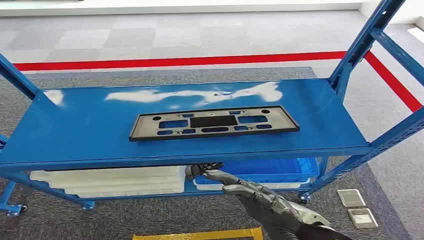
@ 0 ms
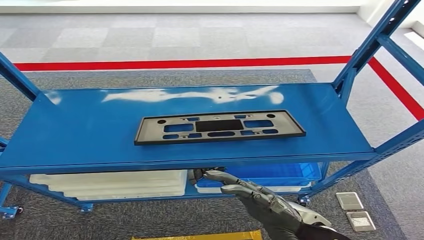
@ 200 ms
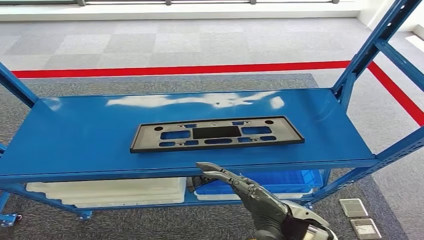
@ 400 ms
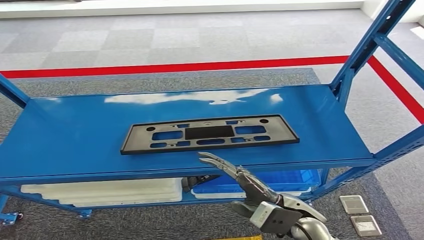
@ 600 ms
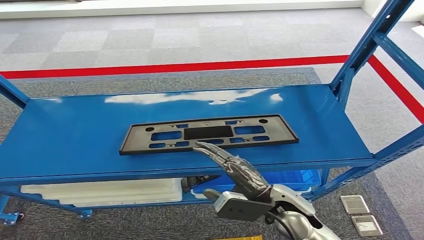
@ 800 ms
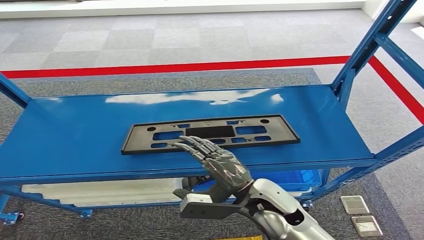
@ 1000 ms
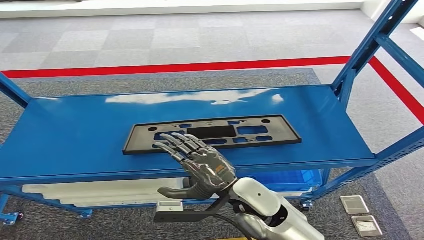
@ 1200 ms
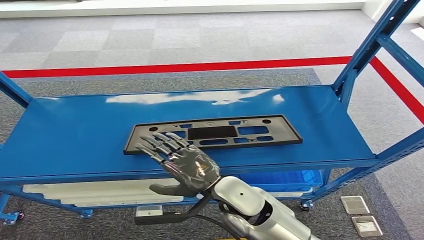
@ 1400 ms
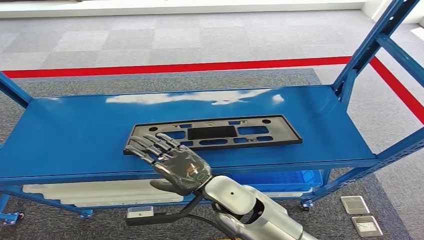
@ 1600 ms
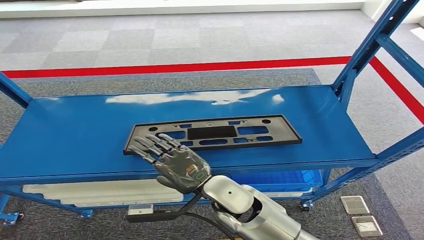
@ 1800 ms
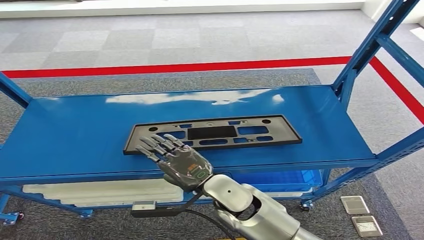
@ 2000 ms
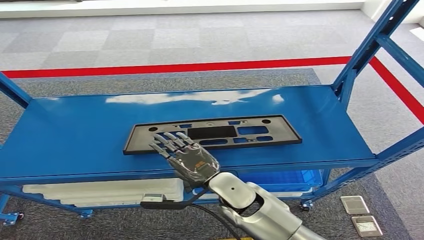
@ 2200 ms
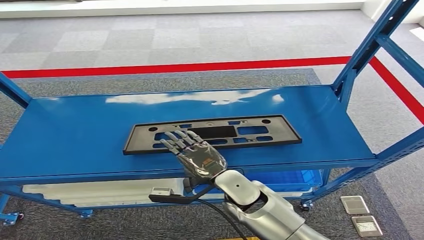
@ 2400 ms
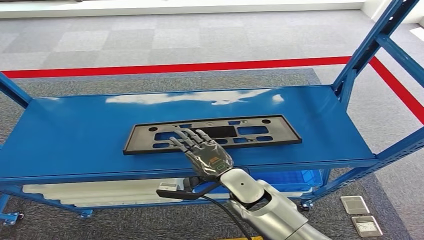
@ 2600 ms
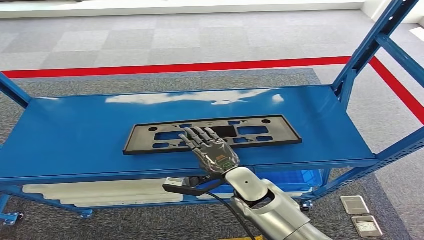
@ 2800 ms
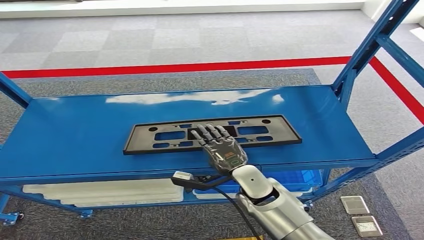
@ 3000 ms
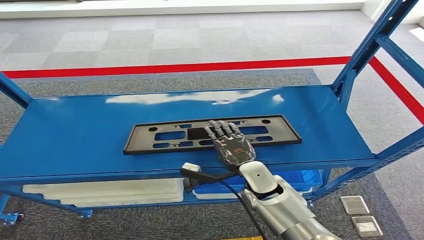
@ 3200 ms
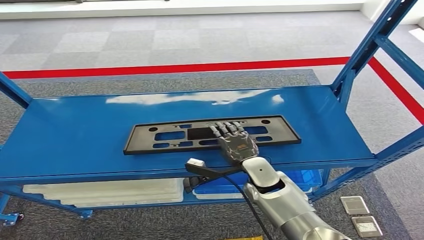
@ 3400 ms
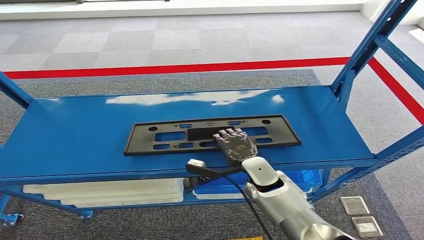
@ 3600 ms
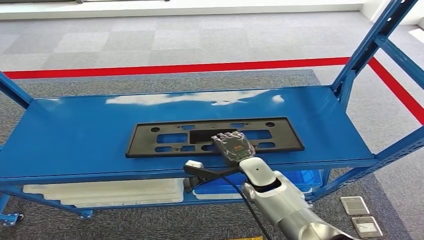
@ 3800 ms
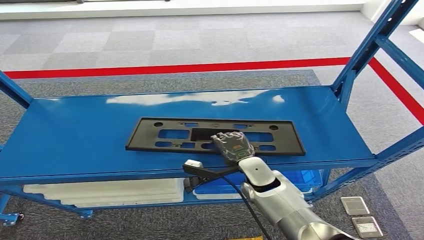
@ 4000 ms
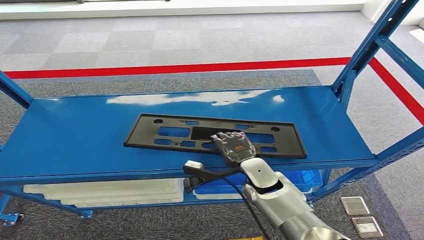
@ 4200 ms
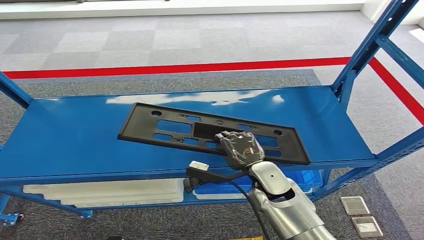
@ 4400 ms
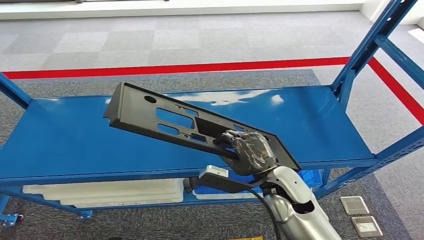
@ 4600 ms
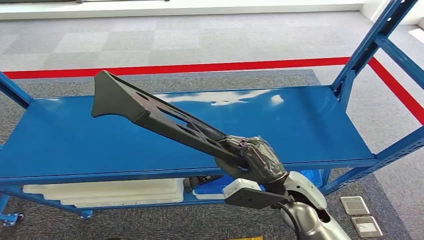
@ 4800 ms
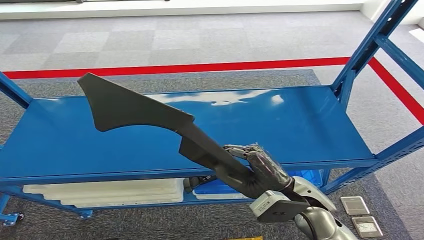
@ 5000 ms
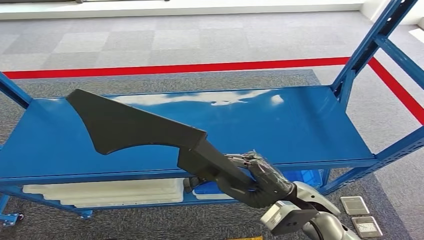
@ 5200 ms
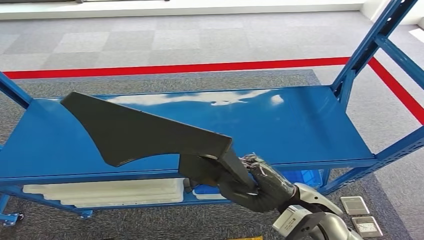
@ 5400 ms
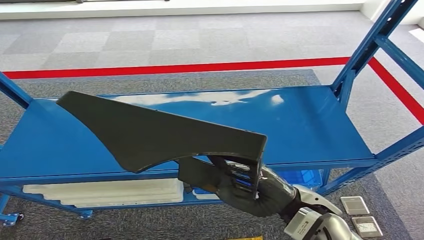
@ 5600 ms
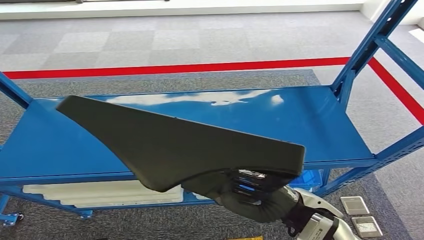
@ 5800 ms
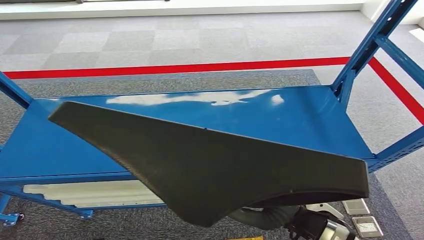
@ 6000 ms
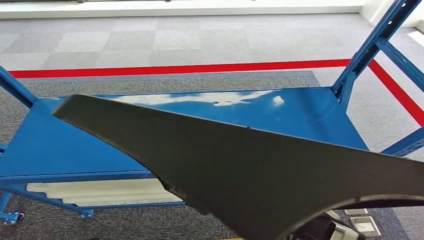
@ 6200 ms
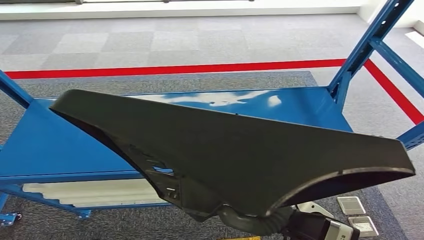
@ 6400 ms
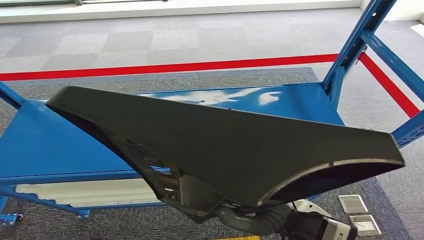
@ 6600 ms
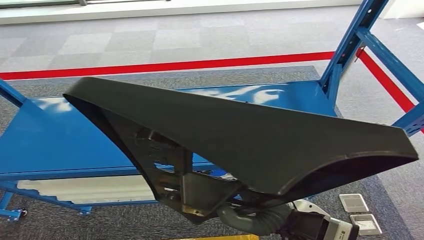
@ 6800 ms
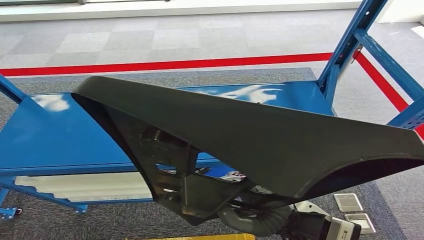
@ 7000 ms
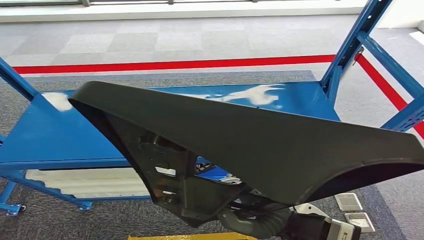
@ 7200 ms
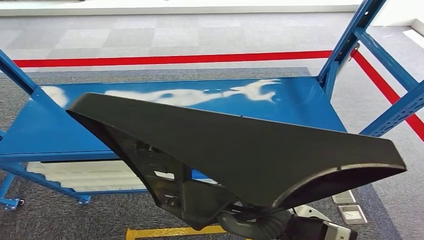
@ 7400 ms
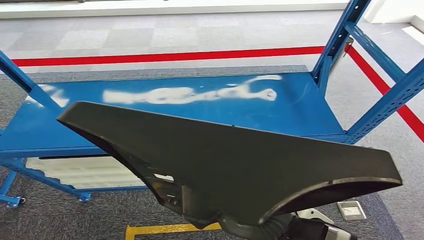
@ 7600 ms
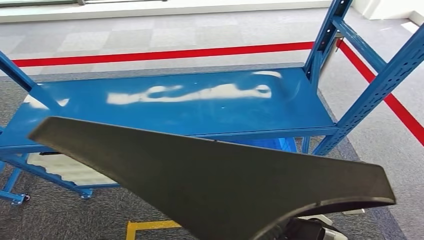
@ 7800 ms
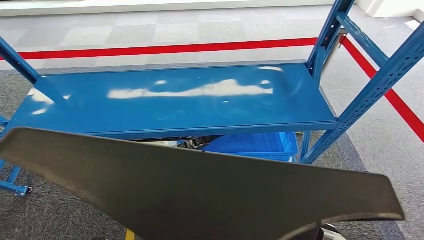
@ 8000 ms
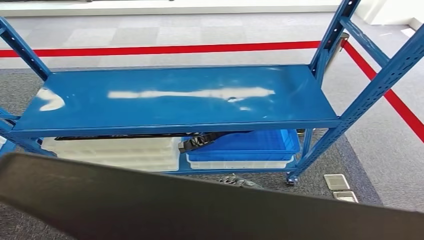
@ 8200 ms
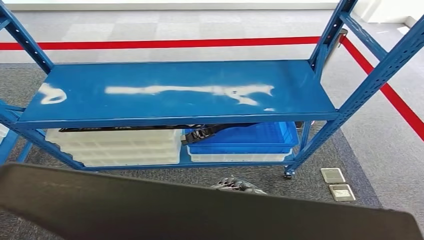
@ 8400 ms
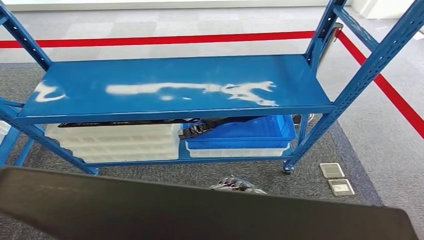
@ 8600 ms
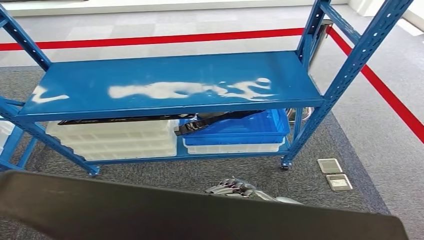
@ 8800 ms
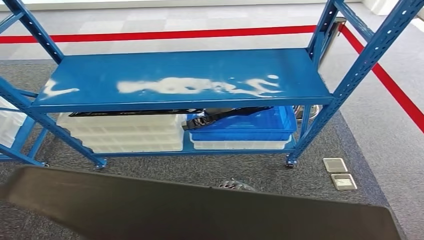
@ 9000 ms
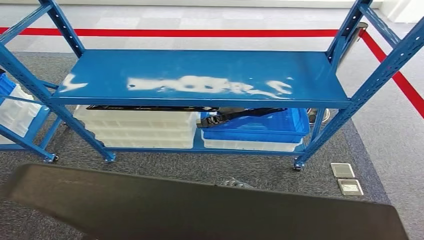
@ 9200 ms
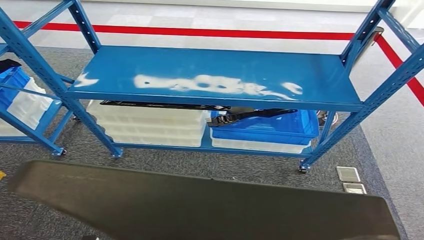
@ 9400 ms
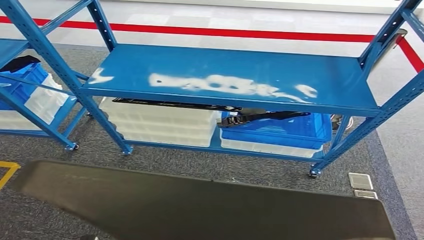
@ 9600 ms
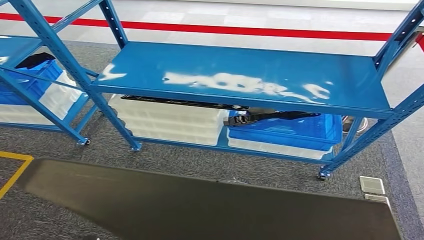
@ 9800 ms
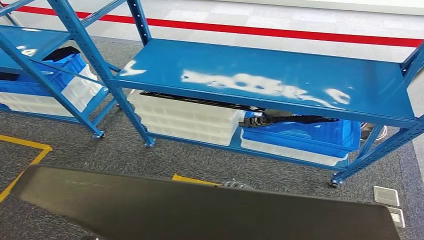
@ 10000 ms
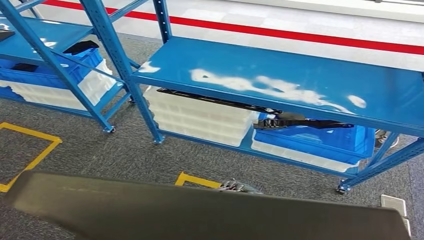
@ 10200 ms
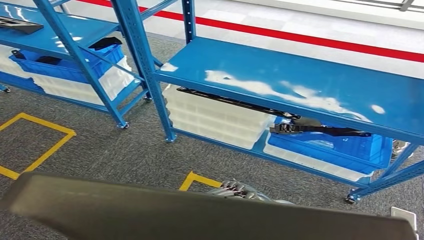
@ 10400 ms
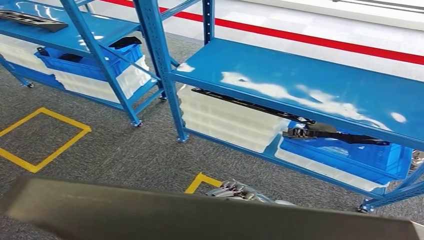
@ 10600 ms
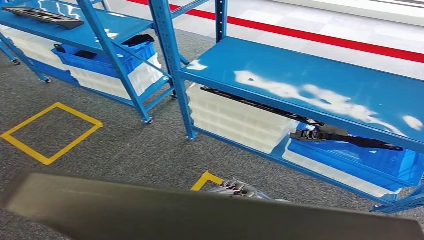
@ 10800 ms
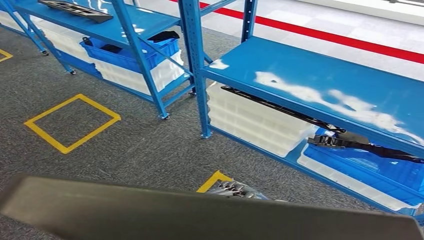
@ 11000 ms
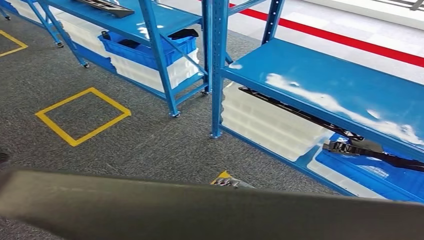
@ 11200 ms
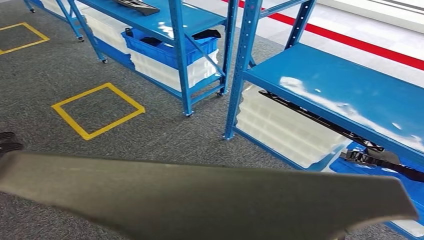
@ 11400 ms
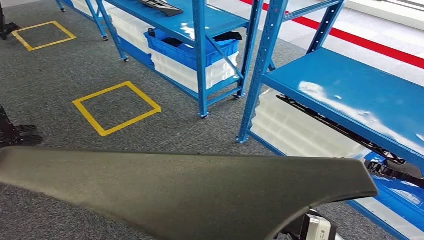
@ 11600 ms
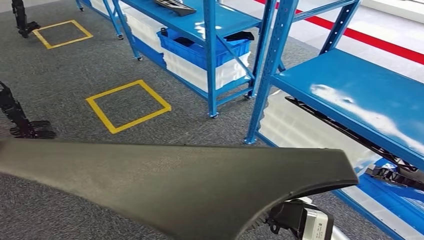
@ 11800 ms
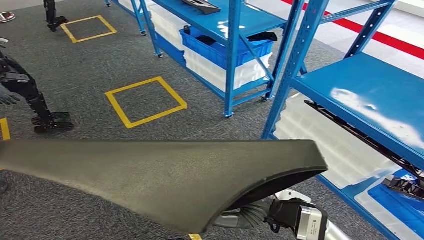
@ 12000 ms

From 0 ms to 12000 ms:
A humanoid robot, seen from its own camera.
Step, from 0 ms to 6800 ms: Pick up the large material from the shelf.
From 1600 ms to 3000 ms: The right hand is displaced downward, to the right and forward by roughly 10 cm.
From 3000 ms to 4400 ms: The hands move only a little.
From 4400 ms to 6000 ms: The right hand travels backward and upward by roughly 15 cm.

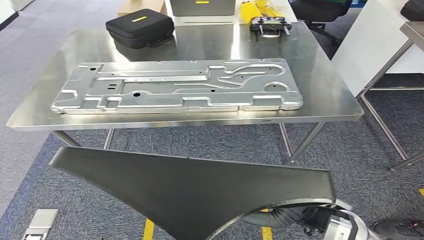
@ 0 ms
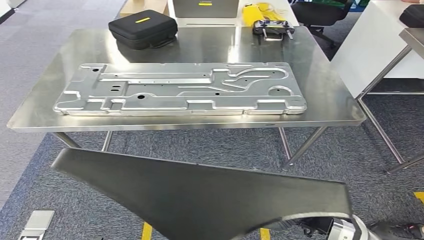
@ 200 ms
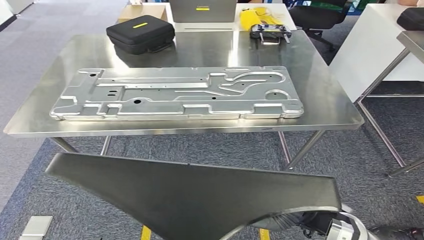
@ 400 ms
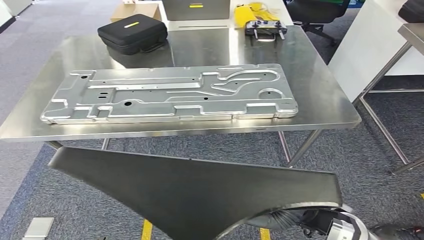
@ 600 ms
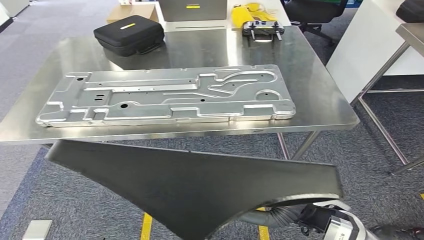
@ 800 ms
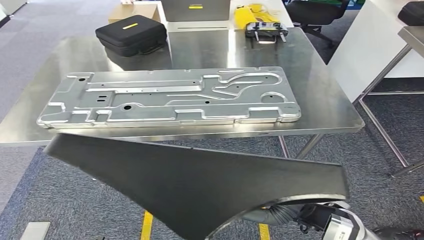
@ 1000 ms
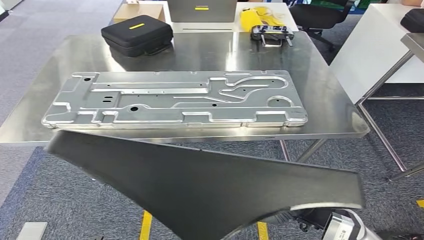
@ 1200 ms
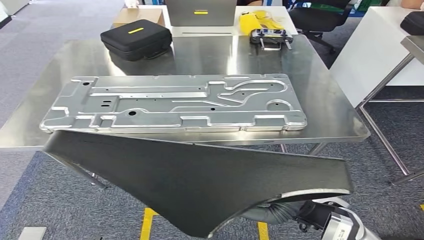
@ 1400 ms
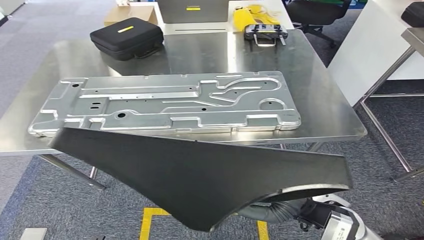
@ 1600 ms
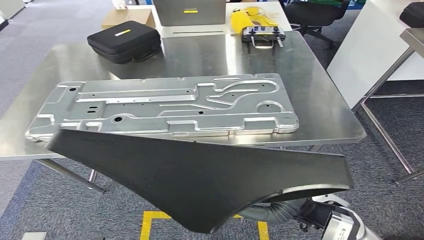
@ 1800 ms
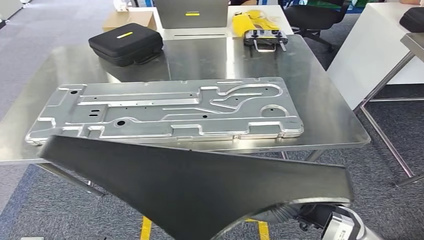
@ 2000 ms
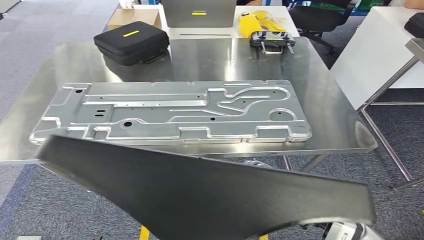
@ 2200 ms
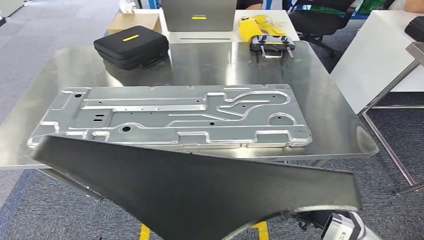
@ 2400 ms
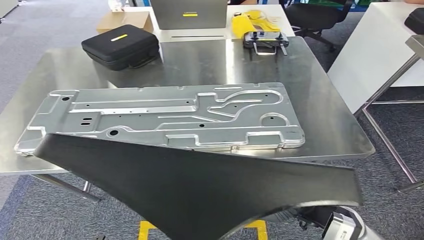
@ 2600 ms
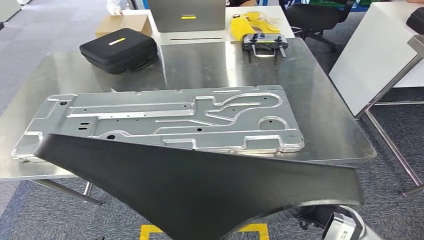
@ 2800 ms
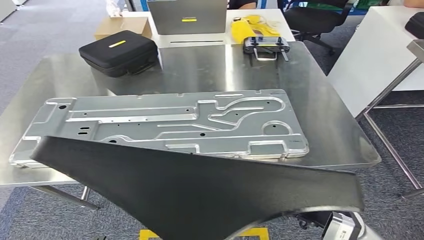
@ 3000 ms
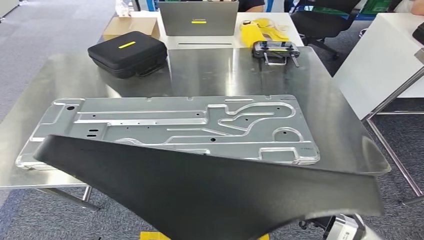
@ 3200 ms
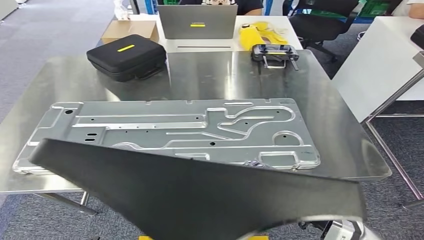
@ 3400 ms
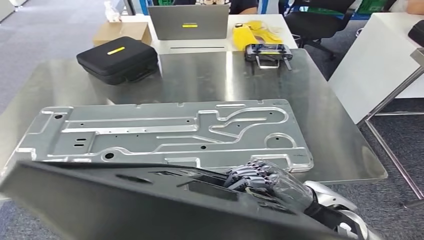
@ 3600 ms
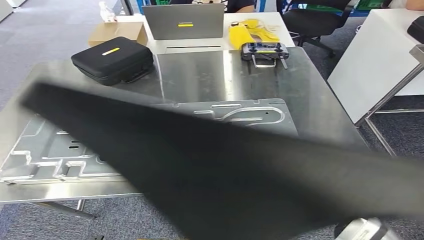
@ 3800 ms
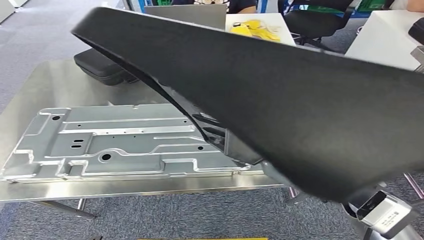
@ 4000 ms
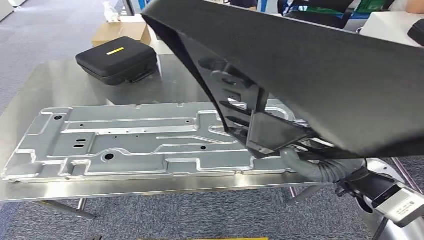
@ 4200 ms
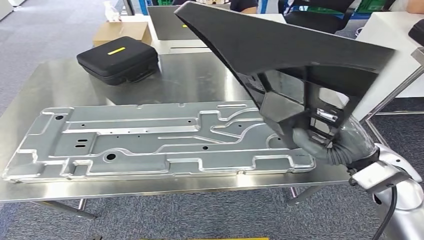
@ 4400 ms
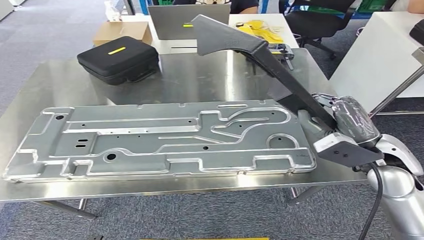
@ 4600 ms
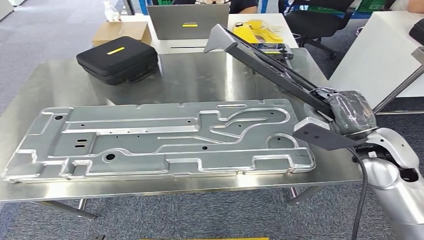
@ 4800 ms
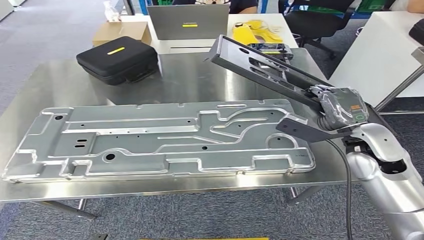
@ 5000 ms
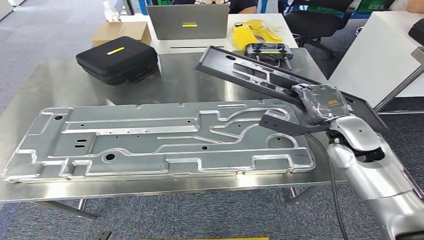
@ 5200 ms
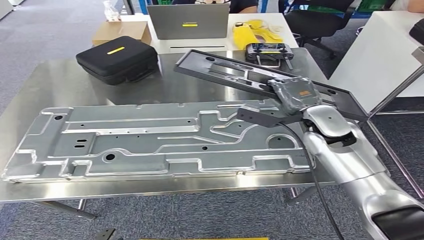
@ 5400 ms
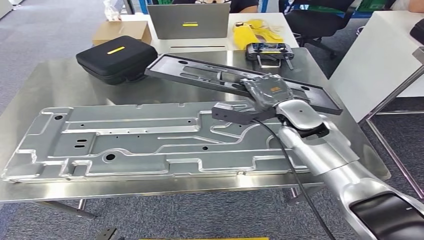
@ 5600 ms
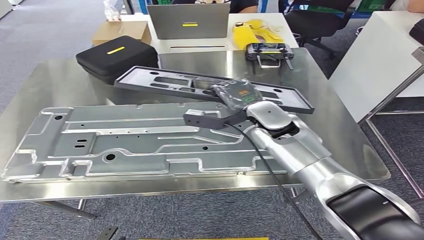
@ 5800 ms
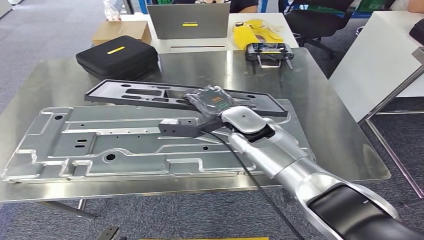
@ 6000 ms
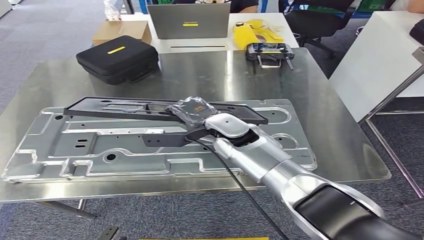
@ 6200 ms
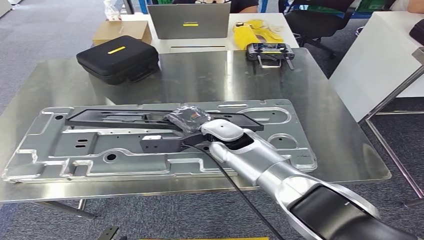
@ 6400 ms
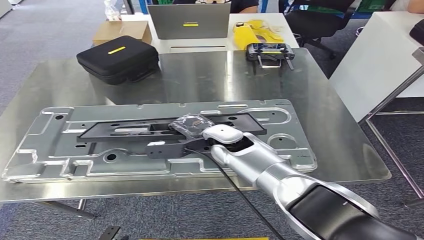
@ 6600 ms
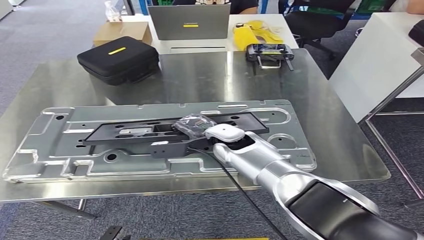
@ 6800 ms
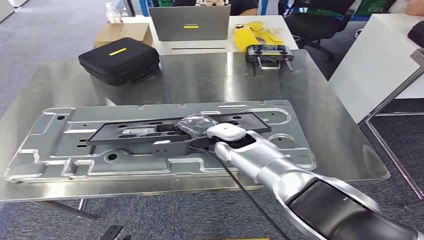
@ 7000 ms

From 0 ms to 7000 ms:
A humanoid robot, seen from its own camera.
Step, from 0 ms to 3600 ms: Move the large material to the workbench.
